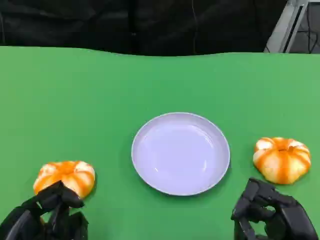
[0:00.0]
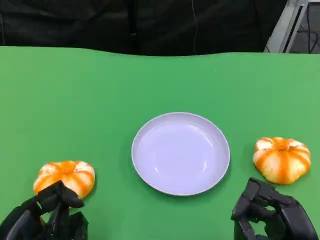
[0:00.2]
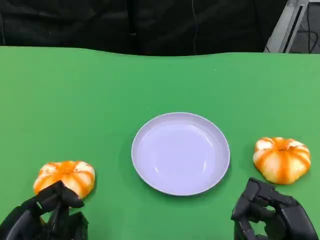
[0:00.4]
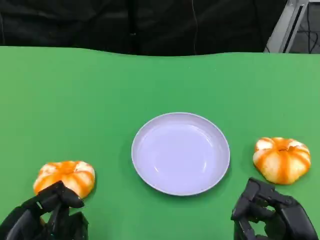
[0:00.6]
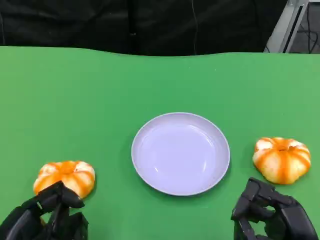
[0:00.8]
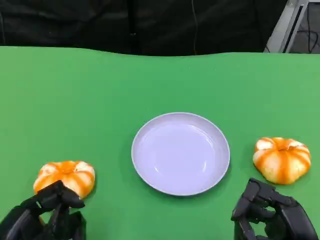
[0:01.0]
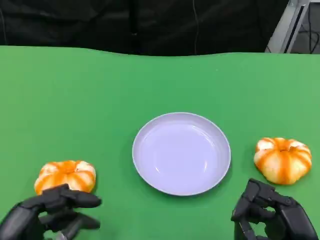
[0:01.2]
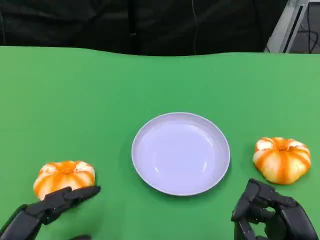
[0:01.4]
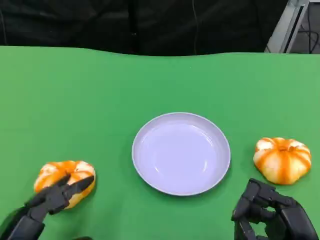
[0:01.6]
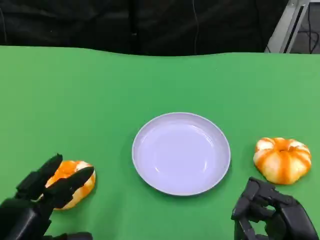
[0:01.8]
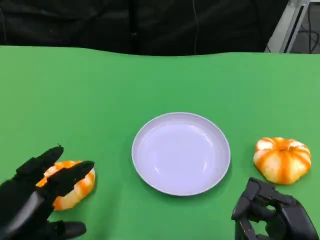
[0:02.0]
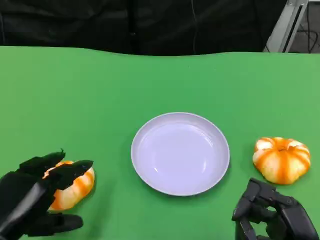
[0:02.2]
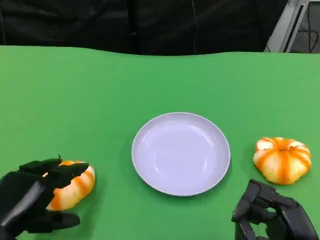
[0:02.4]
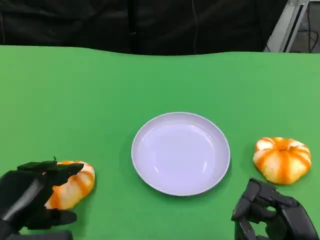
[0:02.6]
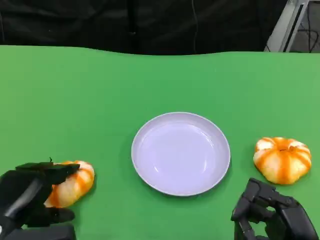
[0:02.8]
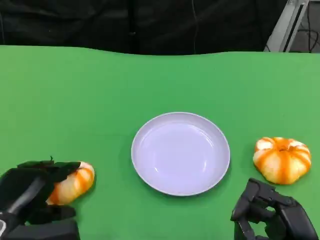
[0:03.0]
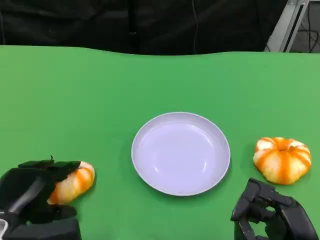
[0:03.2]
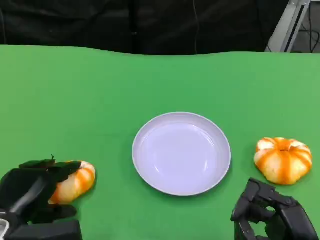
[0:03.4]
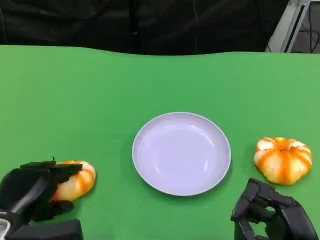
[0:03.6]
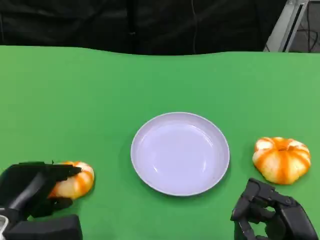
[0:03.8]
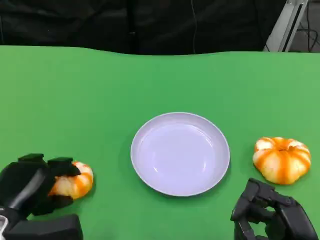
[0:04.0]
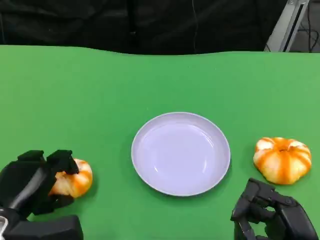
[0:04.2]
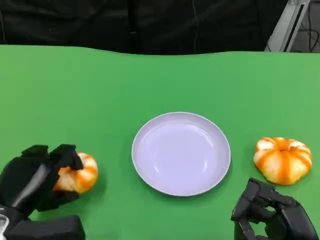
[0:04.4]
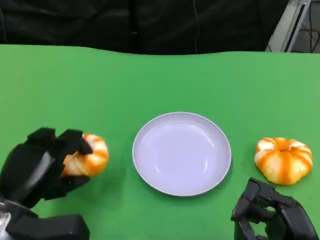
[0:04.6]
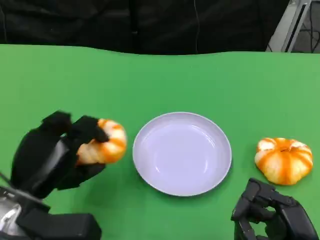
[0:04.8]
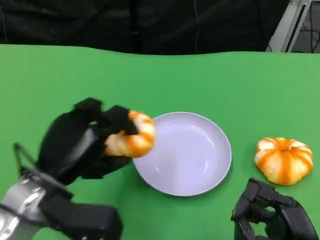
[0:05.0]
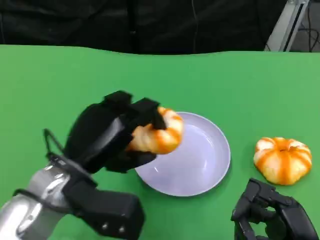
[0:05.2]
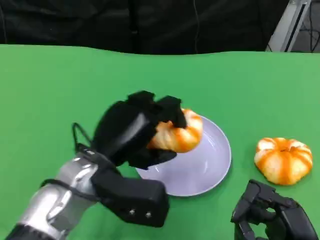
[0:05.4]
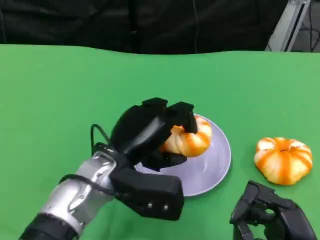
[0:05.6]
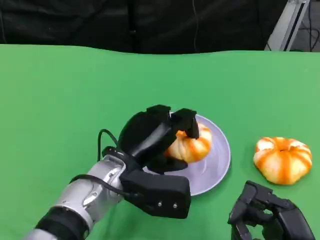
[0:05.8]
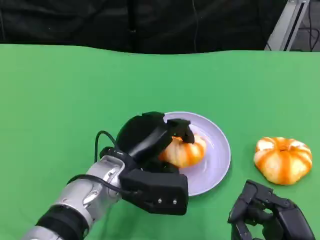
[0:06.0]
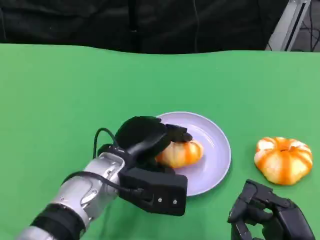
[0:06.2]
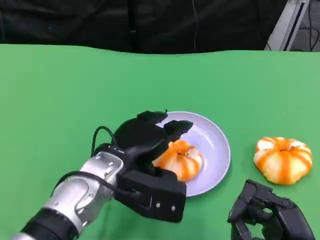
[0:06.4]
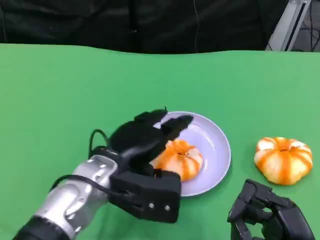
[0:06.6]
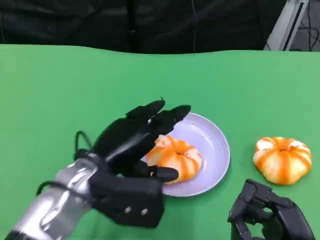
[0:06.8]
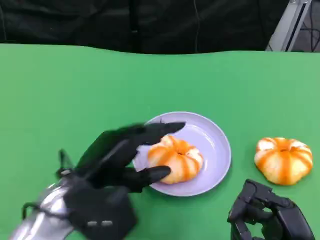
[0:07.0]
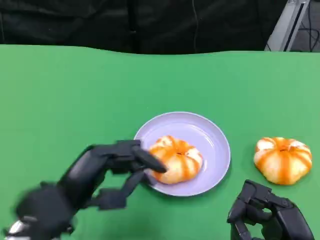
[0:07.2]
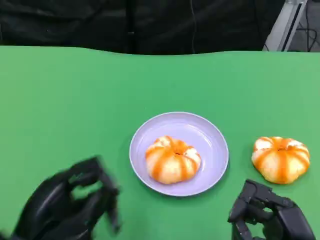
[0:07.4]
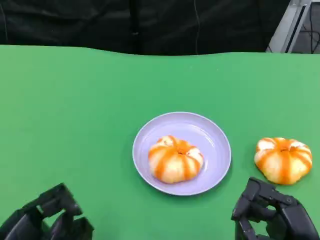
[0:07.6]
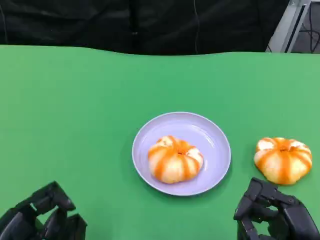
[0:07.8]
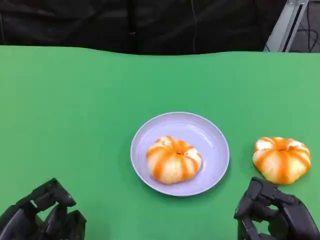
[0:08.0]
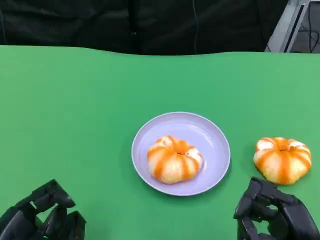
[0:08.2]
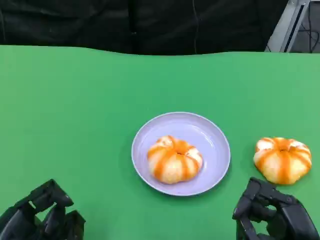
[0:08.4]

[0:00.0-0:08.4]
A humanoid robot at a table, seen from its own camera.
Task of the whole recording: Grasp the bread from the table and place it into the plate.
0:01.4 to 0:02.8: The left hand shifts roughly 5 cm forward.
0:02.8 to 0:04.2: The hands make only small movements.
0:04.2 to 0:05.6: The left hand moves to the right, some 15 cm.
0:05.6 to 0:07.0: The left hand travels to the left and backward by about 10 cm.
0:07.0 to 0:08.4: The left hand goes roughly 15 cm to the left, backward and downward.
